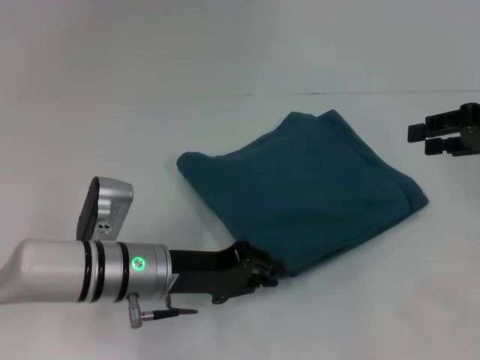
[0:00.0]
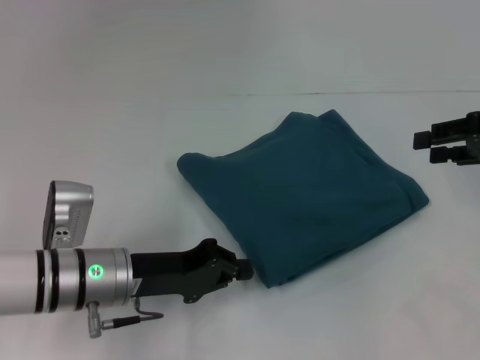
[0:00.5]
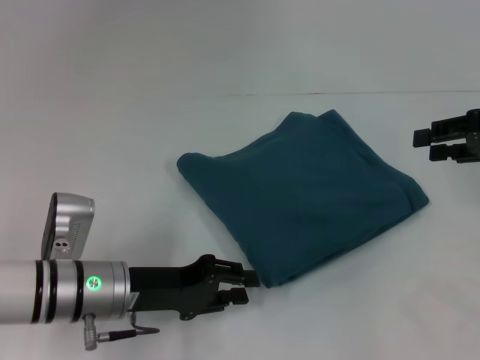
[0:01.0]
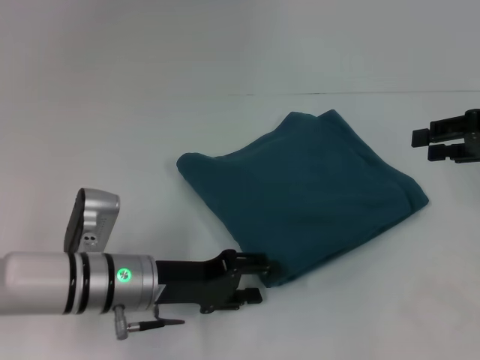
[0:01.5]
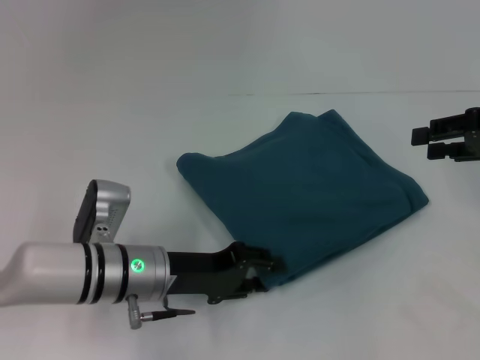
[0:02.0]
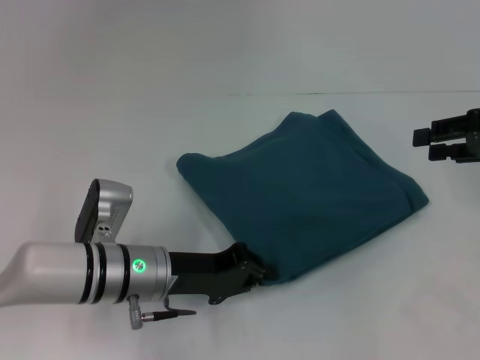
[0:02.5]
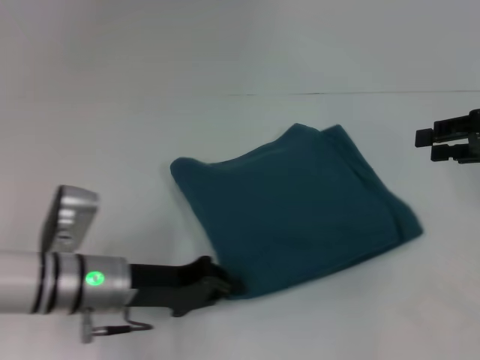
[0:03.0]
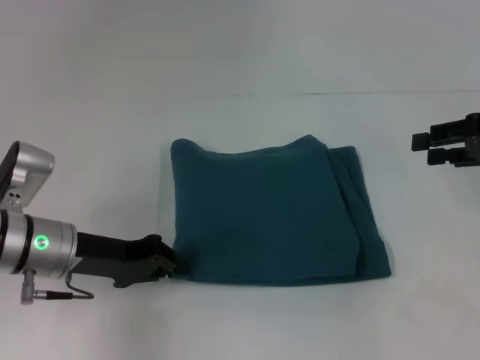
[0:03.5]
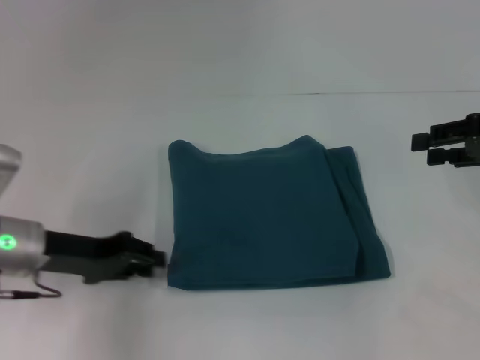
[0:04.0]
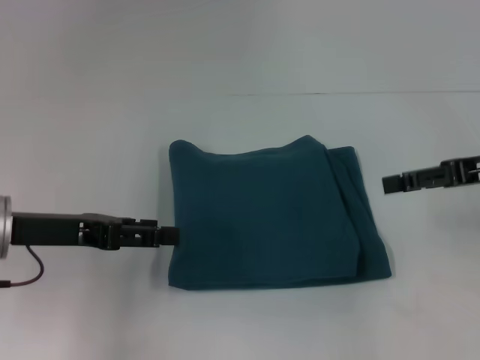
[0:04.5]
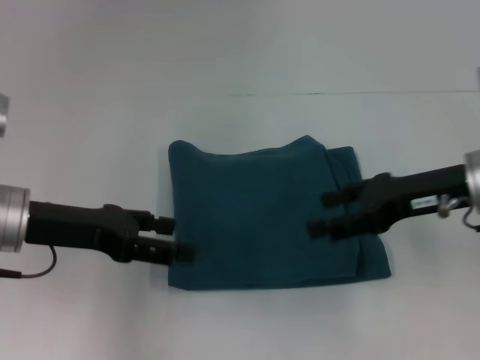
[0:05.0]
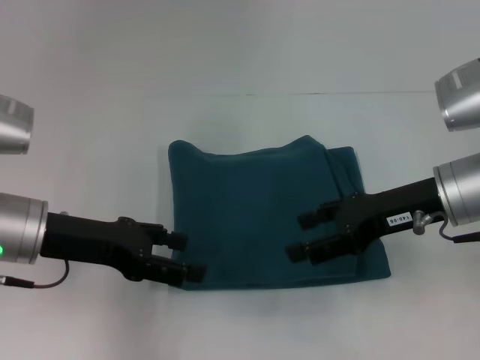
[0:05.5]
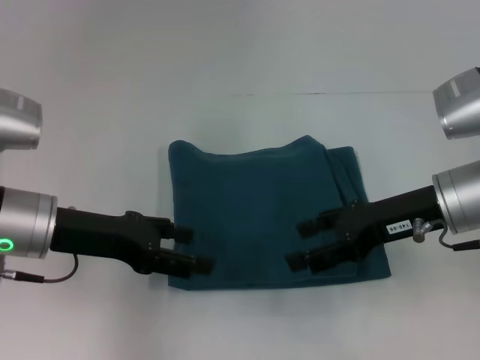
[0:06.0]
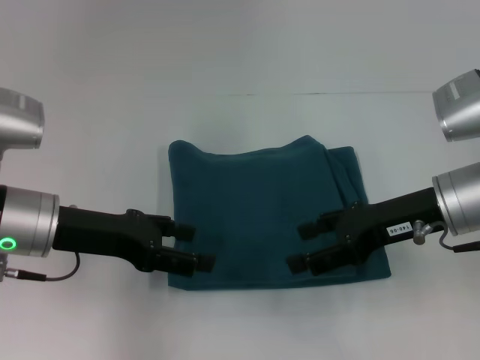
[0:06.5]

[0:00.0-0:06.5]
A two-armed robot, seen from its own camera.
0:00.0 to 0:02.0: The left gripper closes, then opens again.
0:02.0 to 0:04.5: The left gripper heads to the left and upward, covering approximately 15 cm, and closes and opens again.
0:04.5 to 0:06.5: The right gripper is displaced to the left by roughly 10 cm.

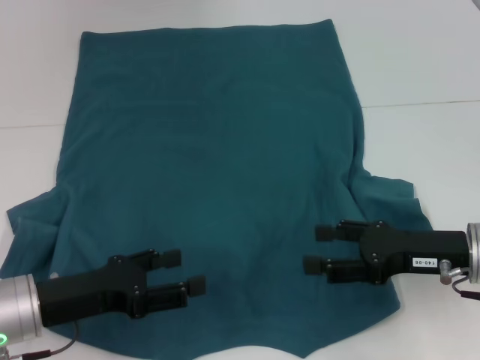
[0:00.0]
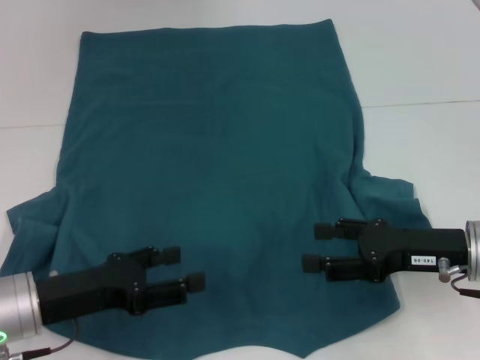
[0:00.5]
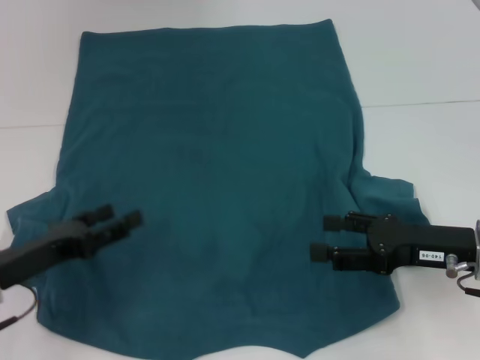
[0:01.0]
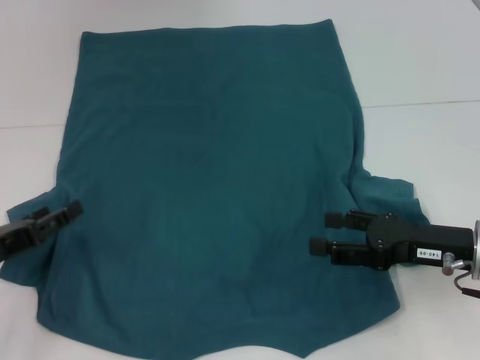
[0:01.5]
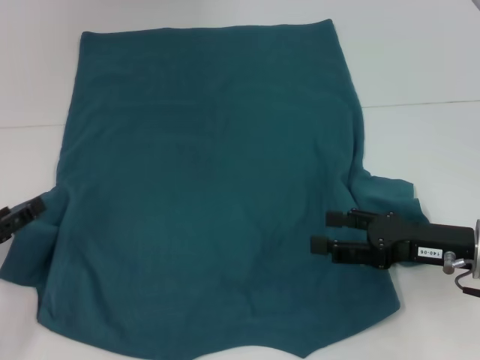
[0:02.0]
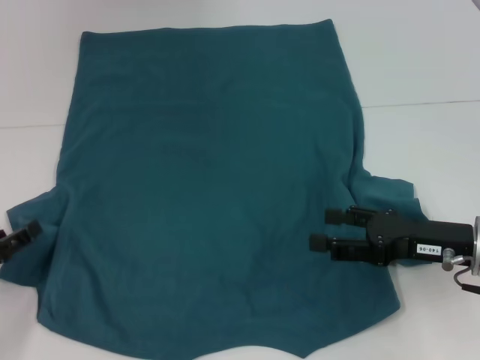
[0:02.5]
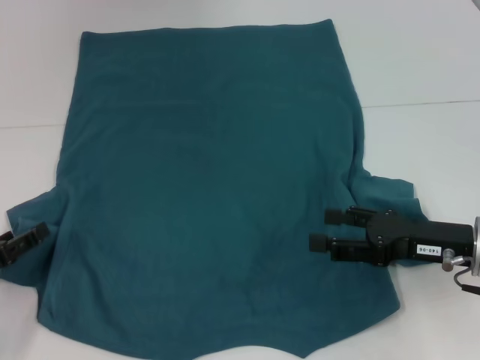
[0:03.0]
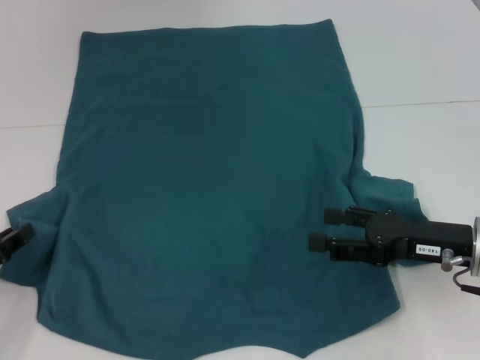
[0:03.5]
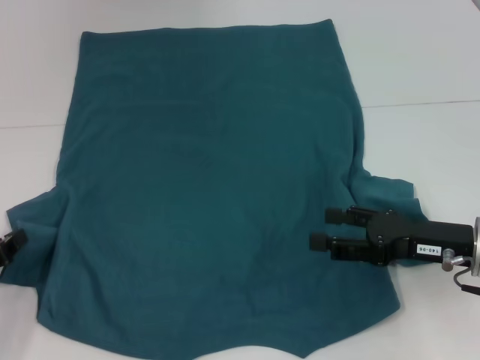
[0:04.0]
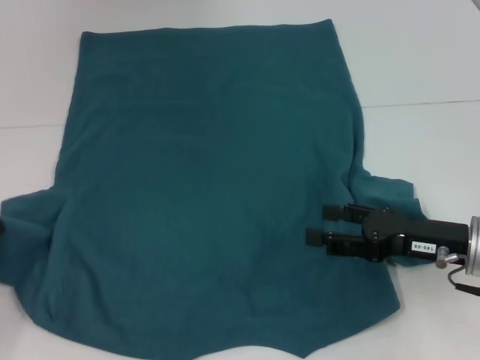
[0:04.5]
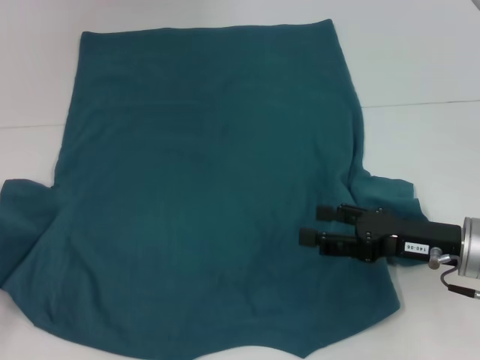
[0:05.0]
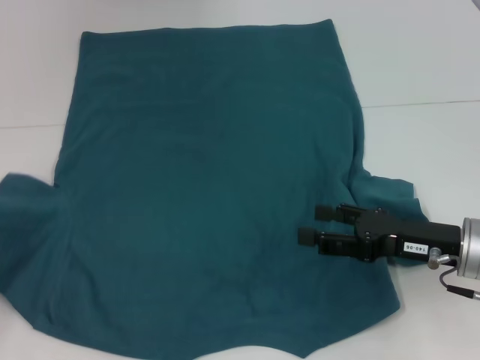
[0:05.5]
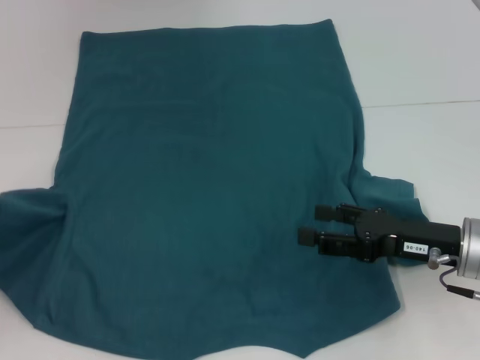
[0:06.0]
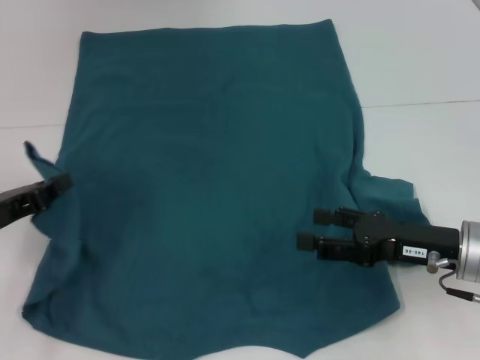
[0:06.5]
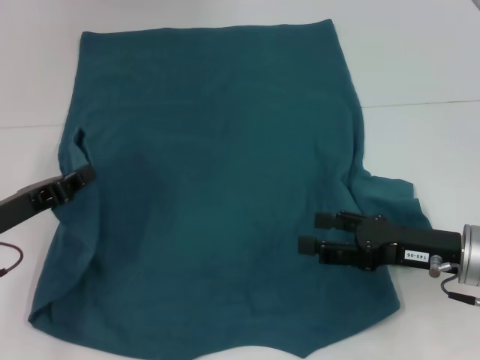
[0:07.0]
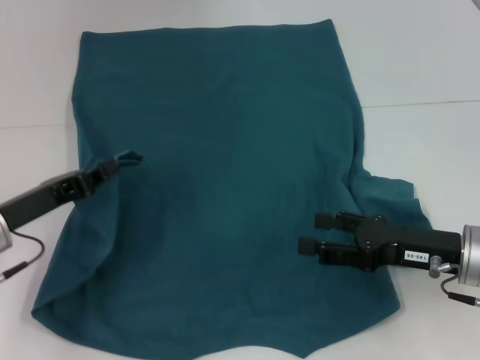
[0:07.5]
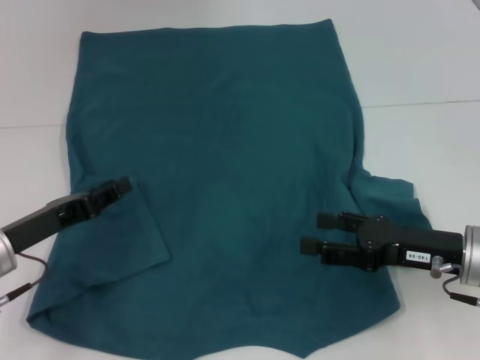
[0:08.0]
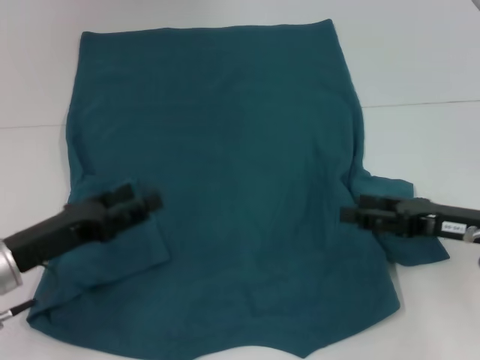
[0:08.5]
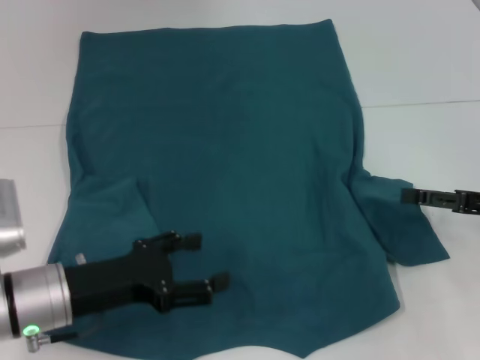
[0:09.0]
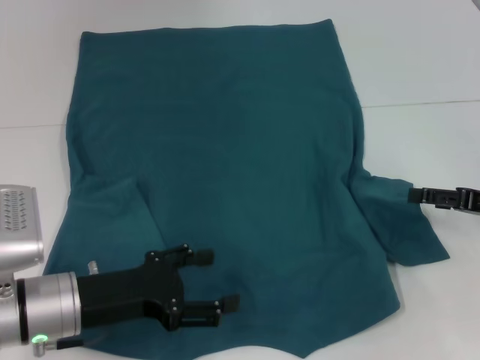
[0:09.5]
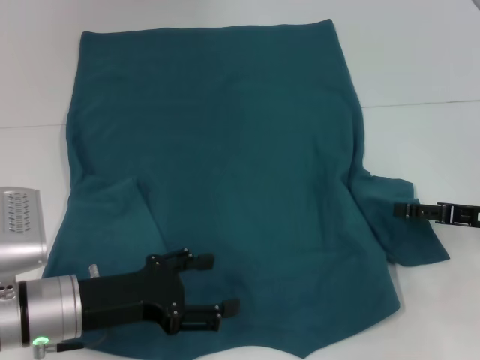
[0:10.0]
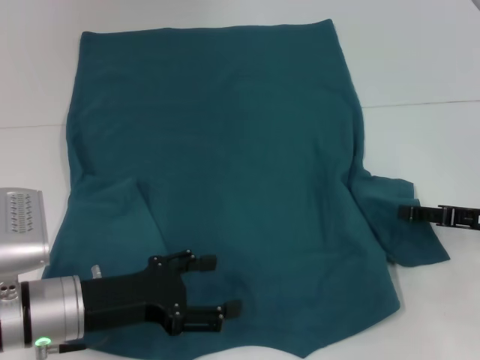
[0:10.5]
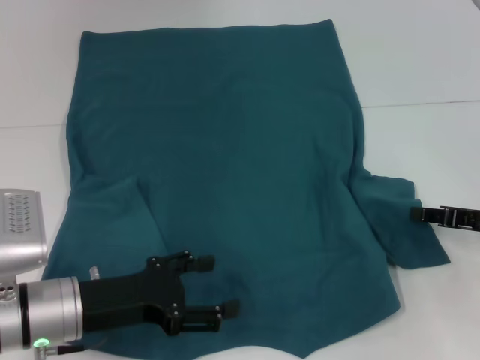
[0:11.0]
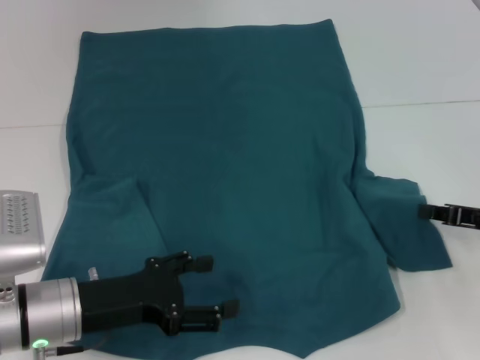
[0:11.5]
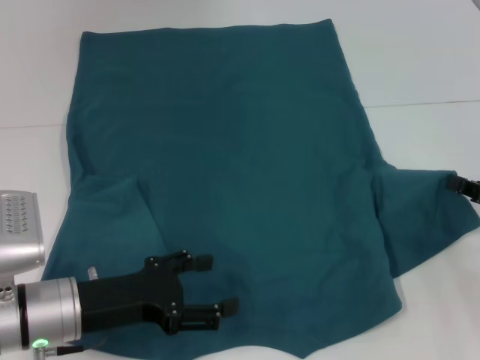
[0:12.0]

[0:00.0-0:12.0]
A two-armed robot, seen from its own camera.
Step, 0:00.0 to 0:08.0: Fold the bottom left sleeve with your left hand.
0:00.0 to 0:02.0: The left gripper goes roughly 10 cm to the left.
0:02.0 to 0:04.0: The left gripper closes its fingers.
0:04.0 to 0:06.0: The left gripper ends up about 5 cm from where it was.
0:06.0 to 0:08.0: The left gripper moves to the right, approximately 10 cm.
0:08.0 to 0:10.0: Both grippers travel together to the right, about 5 cm. The left gripper opens its fingers.
0:10.0 to 0:12.0: The right gripper closes up.

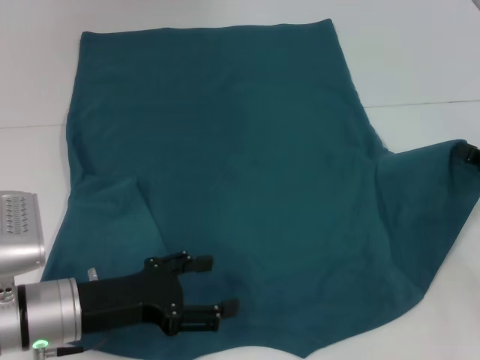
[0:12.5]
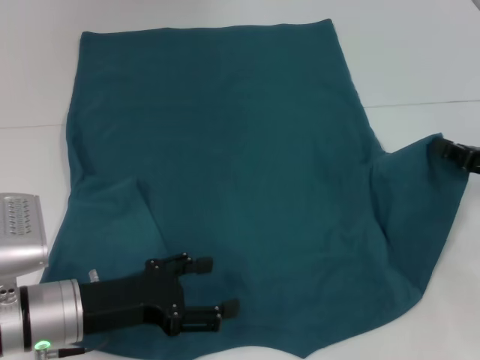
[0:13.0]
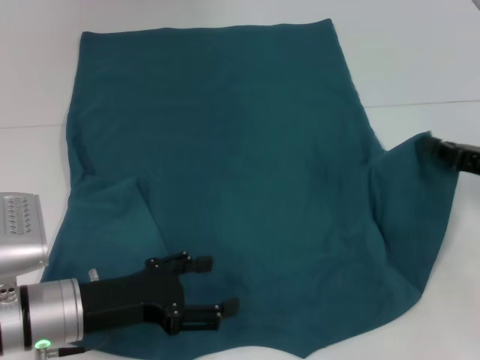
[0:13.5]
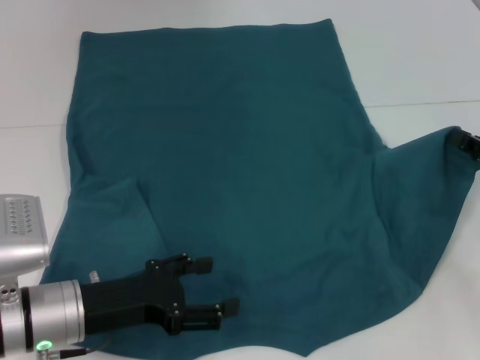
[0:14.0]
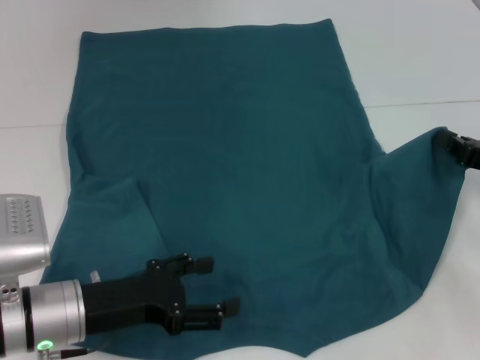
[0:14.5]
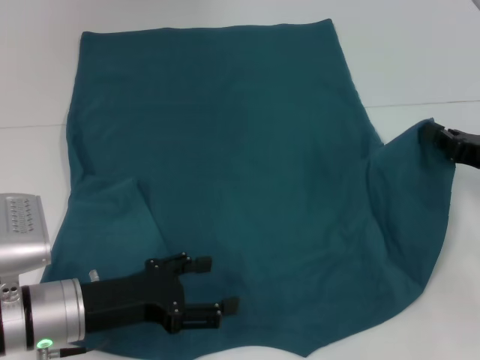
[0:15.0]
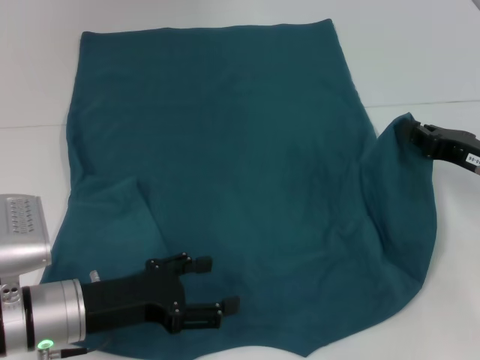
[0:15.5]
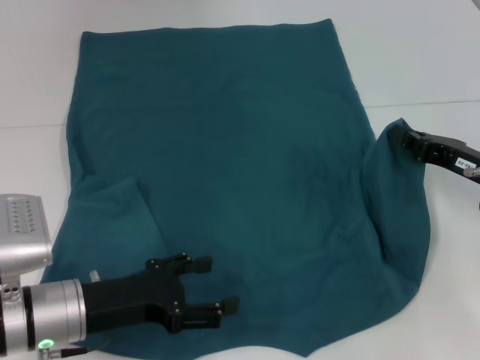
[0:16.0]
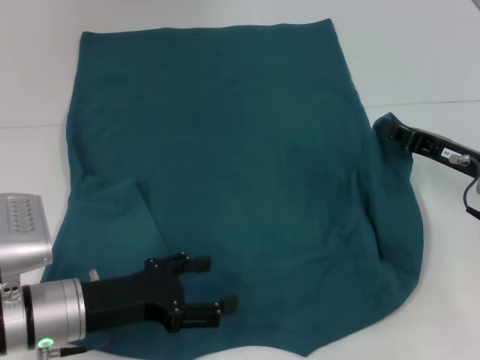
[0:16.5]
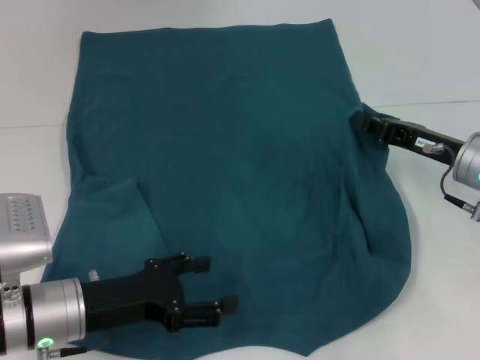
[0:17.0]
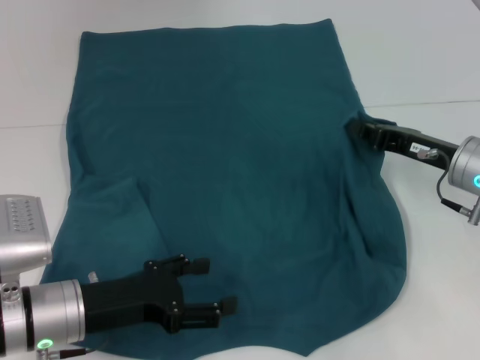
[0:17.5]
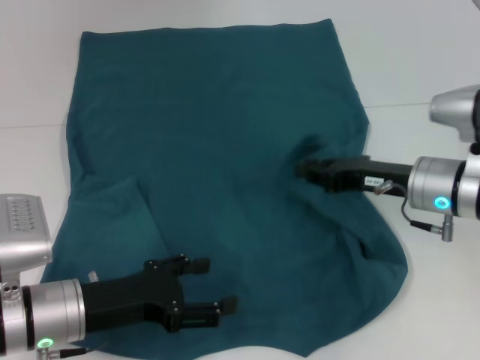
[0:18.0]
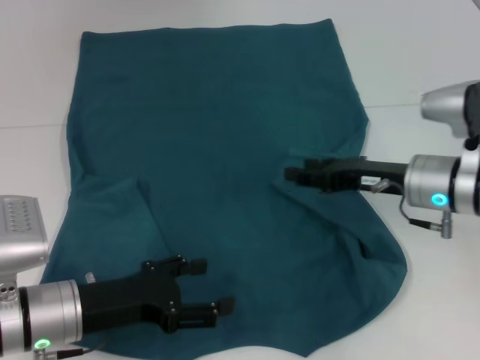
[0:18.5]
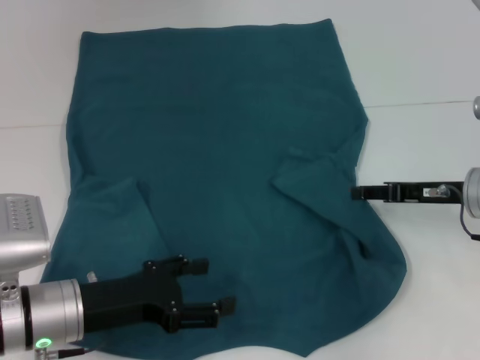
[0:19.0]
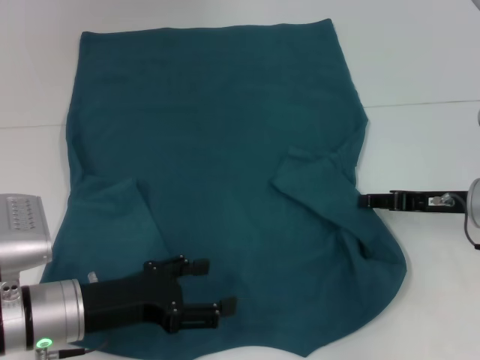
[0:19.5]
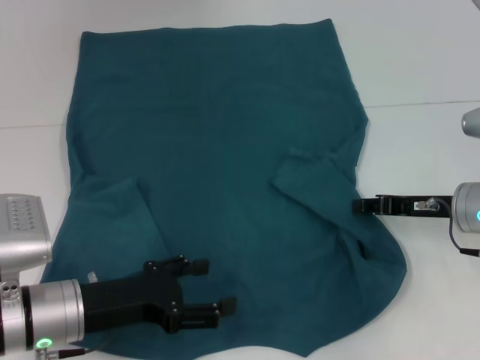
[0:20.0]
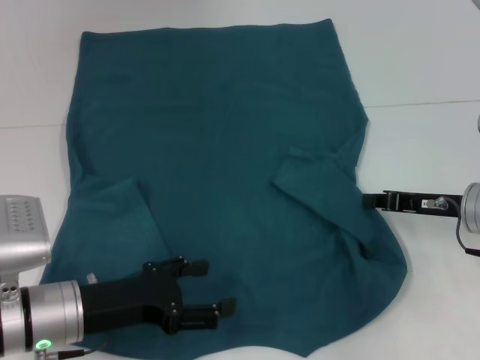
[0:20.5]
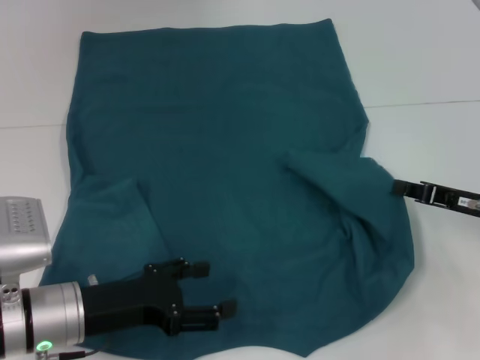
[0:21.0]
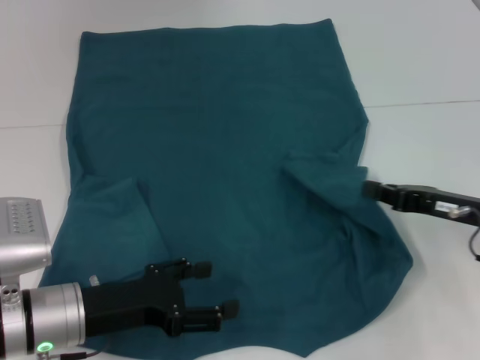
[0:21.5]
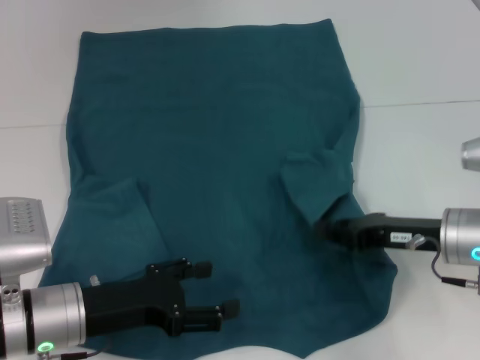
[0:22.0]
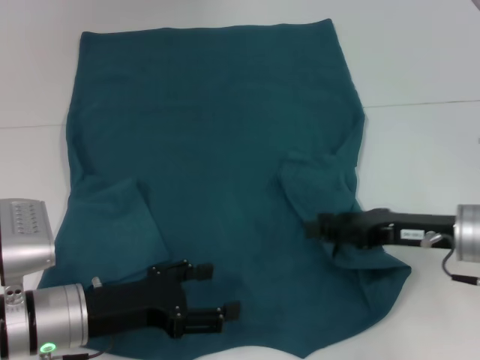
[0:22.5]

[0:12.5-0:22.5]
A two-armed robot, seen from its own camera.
0:12.5 to 0:14.5: The grippers make only small movements.
0:14.5 to 0:16.5: The right gripper moves to the left, roughly 5 cm.
0:16.5 to 0:18.5: The right gripper goes some 5 cm to the left, and opens.
0:18.5 to 0:20.5: The right gripper shifts some 5 cm to the right, and closes.
